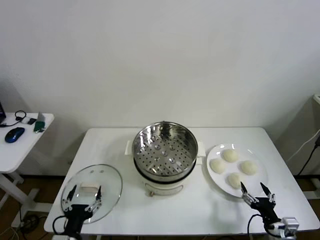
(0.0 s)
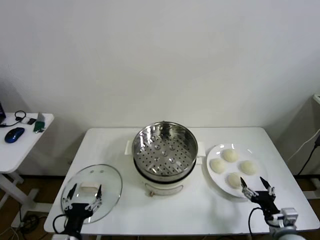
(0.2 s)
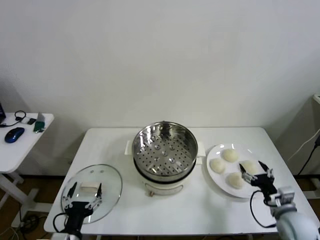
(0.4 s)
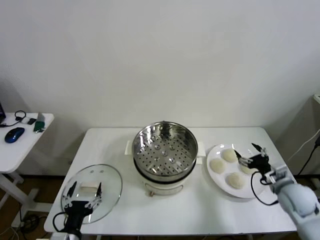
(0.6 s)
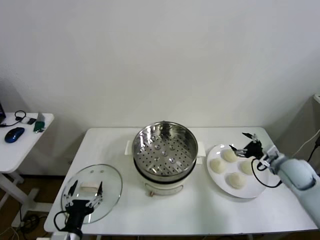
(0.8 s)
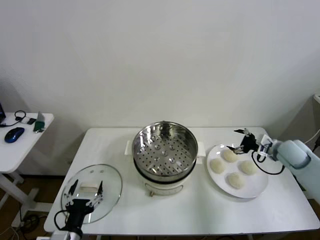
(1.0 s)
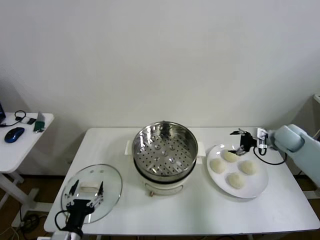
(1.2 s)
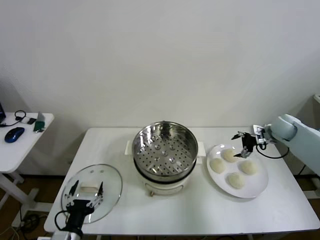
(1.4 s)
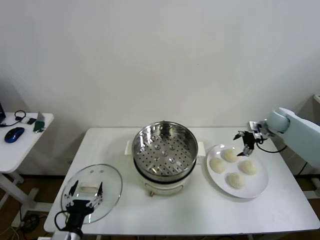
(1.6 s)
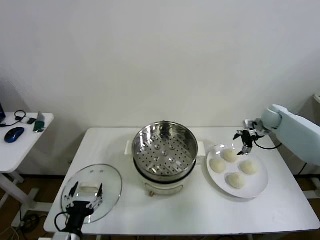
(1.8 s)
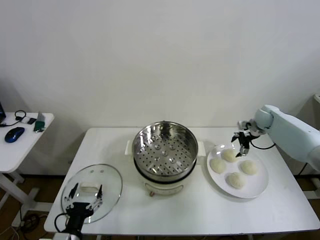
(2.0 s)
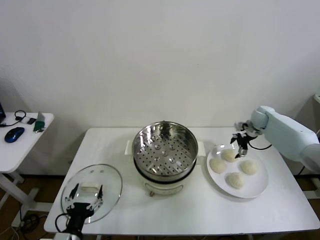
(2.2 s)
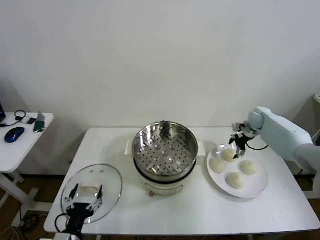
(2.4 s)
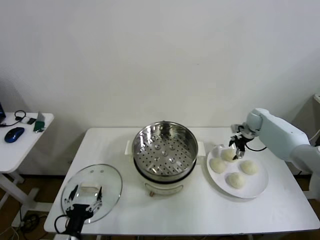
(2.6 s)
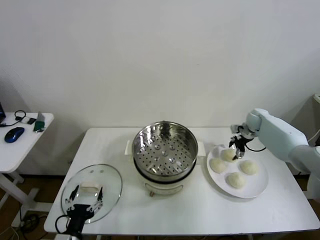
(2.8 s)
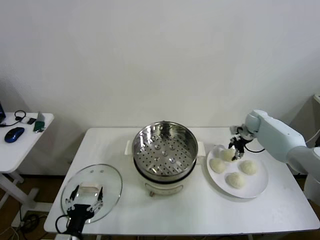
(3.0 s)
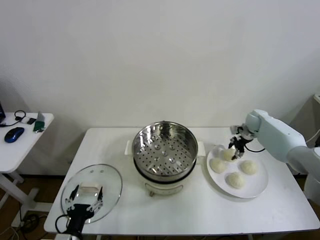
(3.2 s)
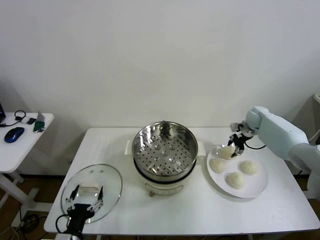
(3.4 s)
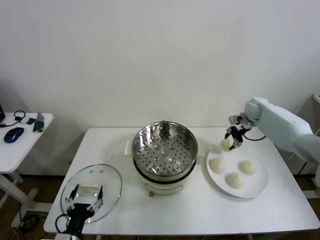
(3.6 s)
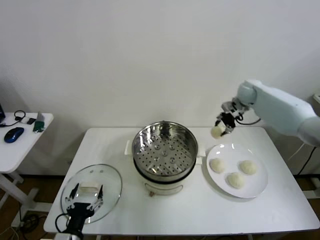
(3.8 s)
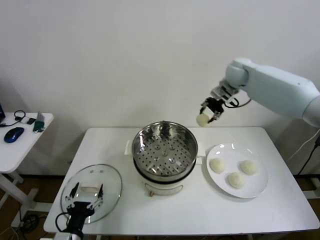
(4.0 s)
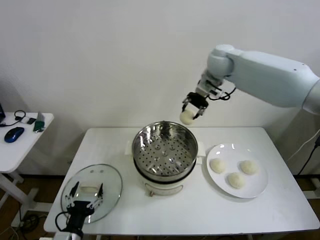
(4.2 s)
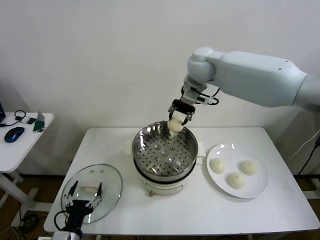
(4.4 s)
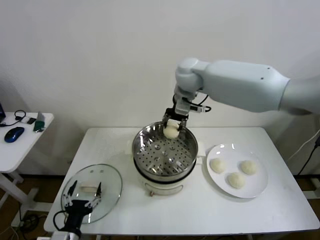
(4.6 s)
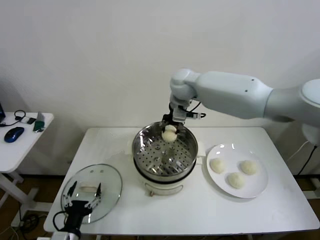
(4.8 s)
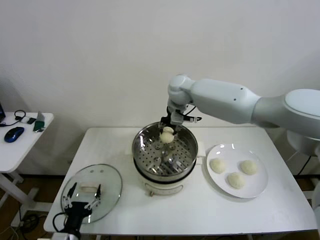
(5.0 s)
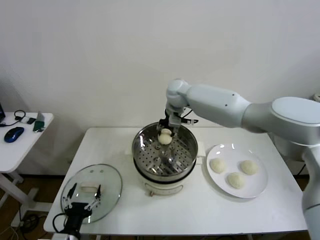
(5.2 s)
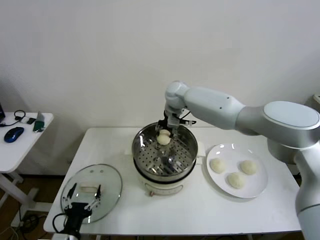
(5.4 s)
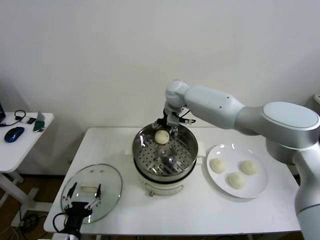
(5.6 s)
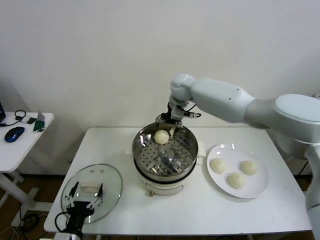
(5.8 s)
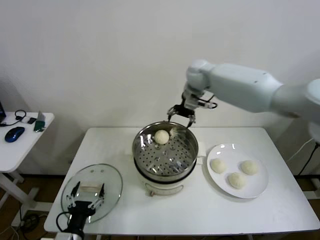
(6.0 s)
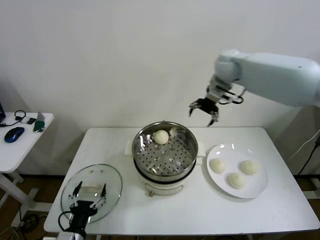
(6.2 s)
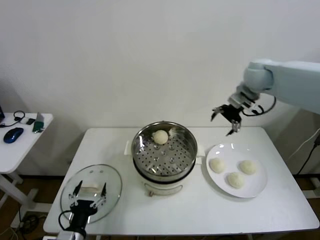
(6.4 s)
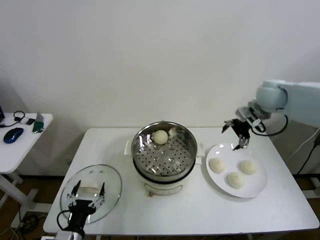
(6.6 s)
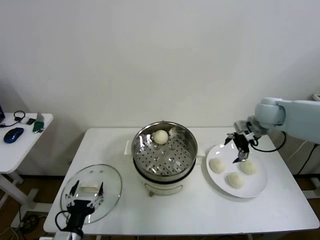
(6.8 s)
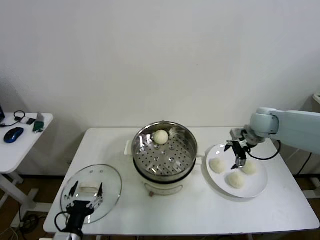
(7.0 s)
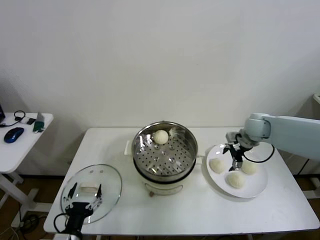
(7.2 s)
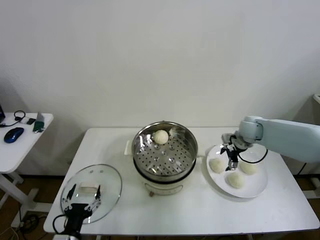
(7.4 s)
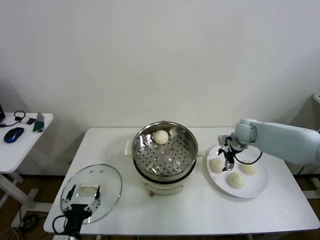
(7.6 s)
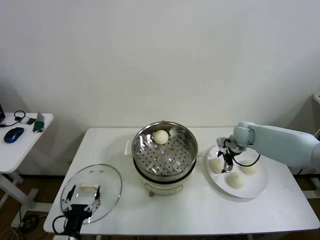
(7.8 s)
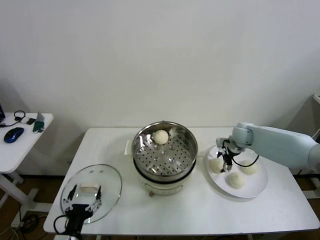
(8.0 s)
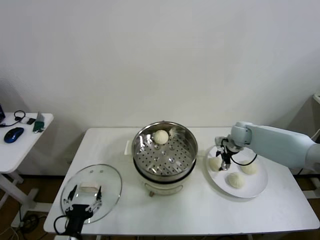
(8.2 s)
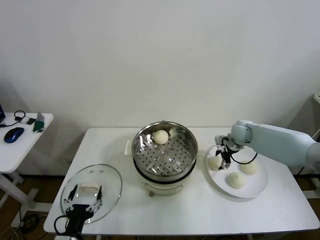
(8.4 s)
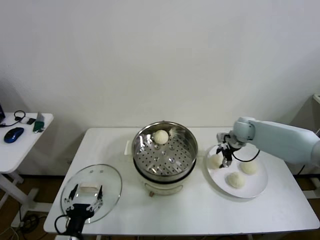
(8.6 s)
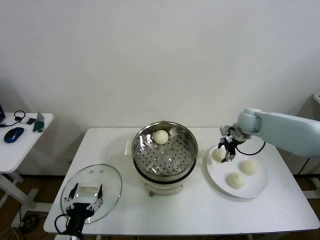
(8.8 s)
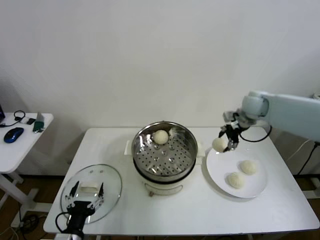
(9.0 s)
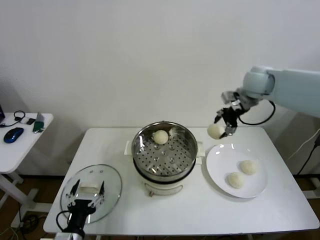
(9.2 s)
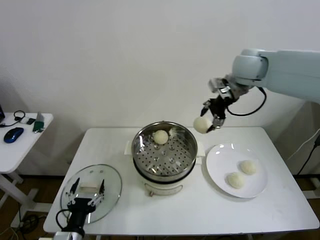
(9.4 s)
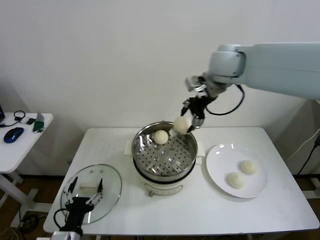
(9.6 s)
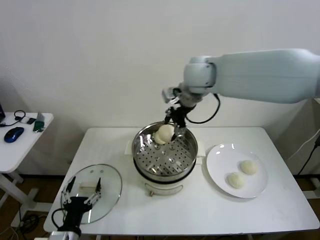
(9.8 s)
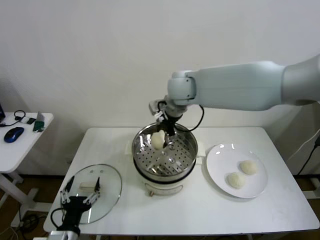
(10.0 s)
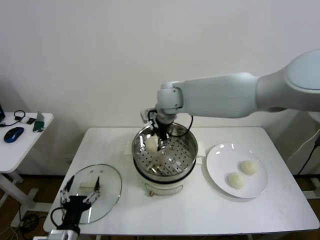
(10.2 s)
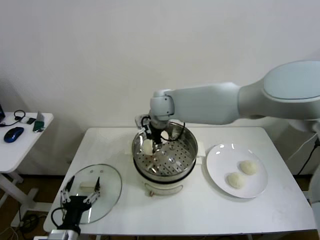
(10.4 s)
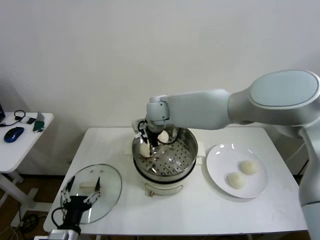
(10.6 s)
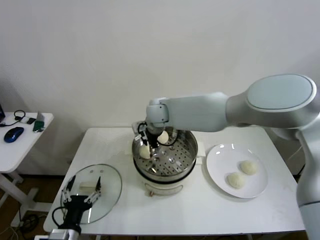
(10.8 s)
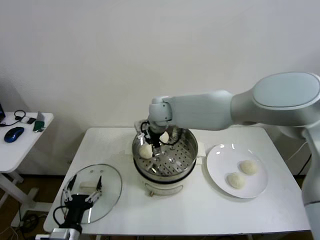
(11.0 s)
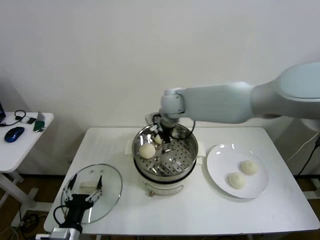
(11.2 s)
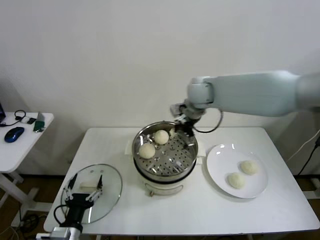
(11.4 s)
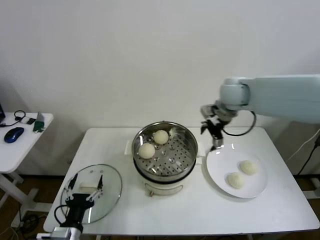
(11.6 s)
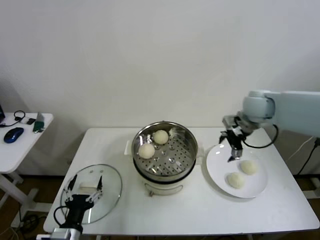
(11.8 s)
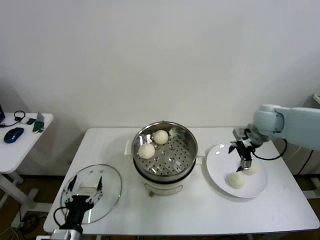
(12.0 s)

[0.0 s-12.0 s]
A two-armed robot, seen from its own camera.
Step, 0.0 to 3.0 s: Grasp the baozi in the plate with right gripper.
Step, 3.2 to 5.4 s: Place the baozi on the steamer with right gripper.
Step, 5.8 to 8.2 s: Grasp the baozi in the plate with right gripper.
Step, 8.4 to 10.8 s: Place the baozi on the steamer with right gripper.
1.6 to 3.0 s: The right gripper is displaced downward by some 5 cm, and closes.
3.0 to 4.4 s: The right gripper goes approximately 40 cm to the left and upward.
4.4 to 6.0 s: The right gripper is displaced to the right by roughly 5 cm, travels downward and back again, approximately 15 cm each way, and opens.
6.0 to 7.6 s: The right gripper shifts approximately 30 cm downward and to the right.
7.6 to 9.0 s: The right gripper travels upward by about 15 cm, and closes.
9.0 to 10.4 s: The right gripper is displaced to the left by approximately 30 cm.
10.4 to 12.0 s: The right gripper moves to the right, about 35 cm, and opens up.

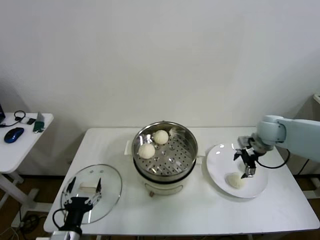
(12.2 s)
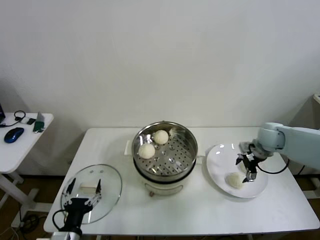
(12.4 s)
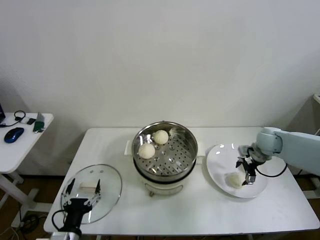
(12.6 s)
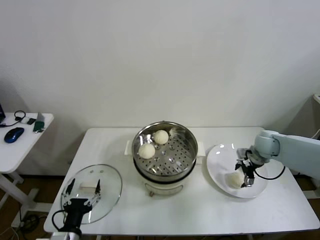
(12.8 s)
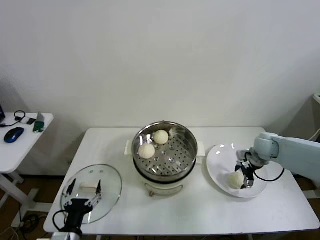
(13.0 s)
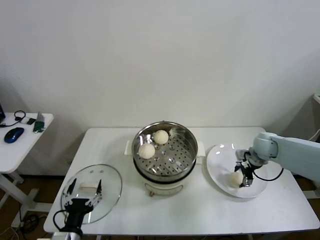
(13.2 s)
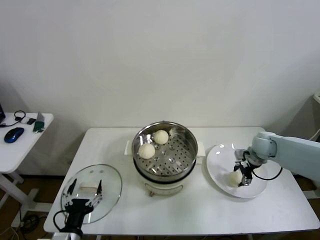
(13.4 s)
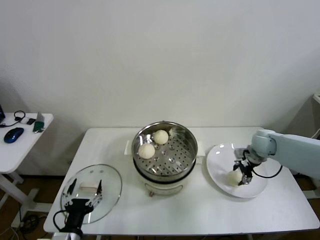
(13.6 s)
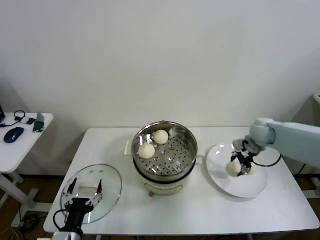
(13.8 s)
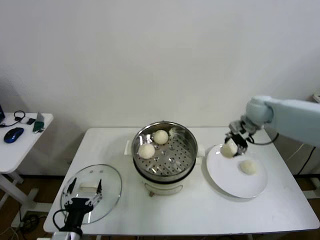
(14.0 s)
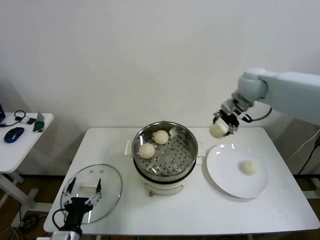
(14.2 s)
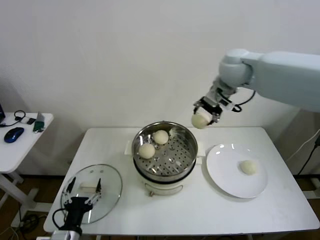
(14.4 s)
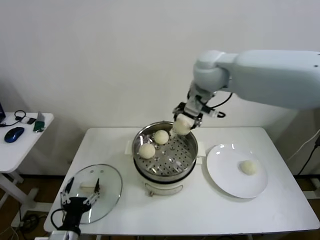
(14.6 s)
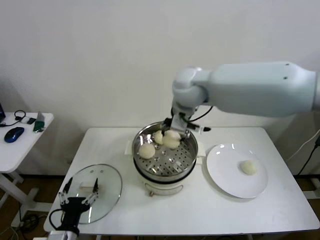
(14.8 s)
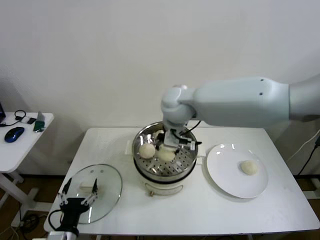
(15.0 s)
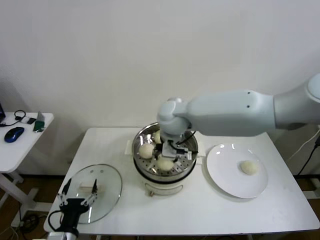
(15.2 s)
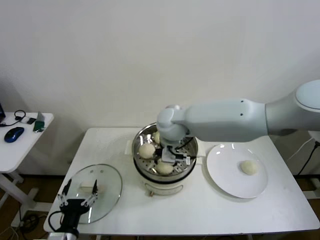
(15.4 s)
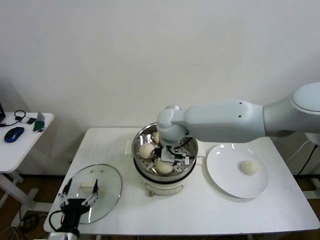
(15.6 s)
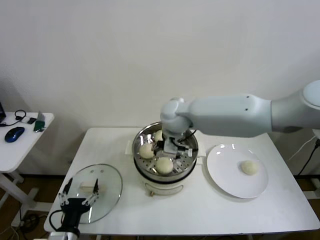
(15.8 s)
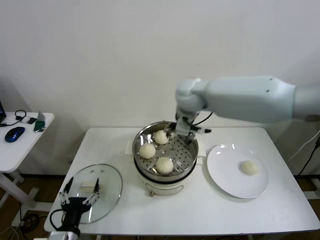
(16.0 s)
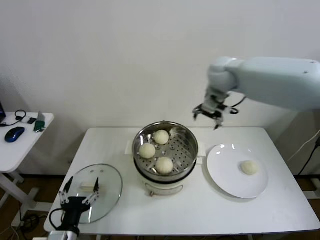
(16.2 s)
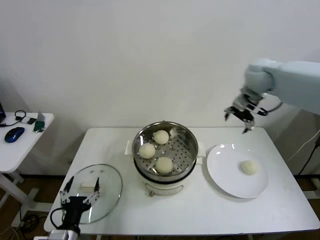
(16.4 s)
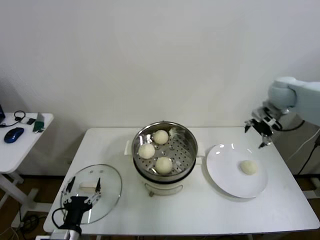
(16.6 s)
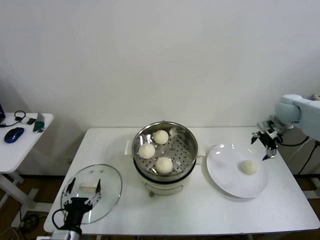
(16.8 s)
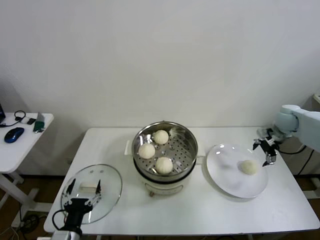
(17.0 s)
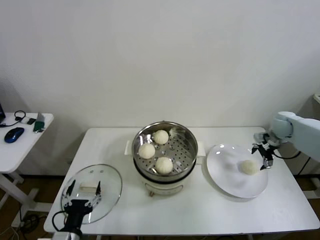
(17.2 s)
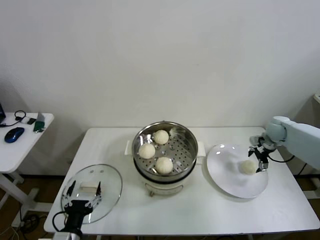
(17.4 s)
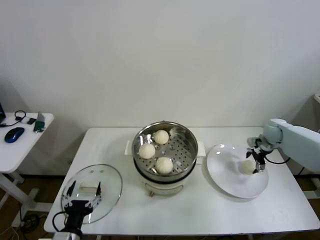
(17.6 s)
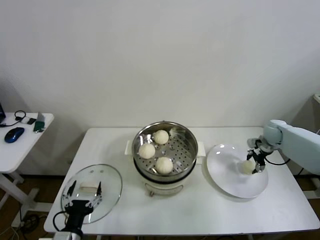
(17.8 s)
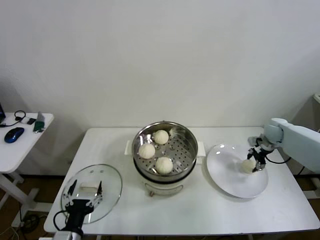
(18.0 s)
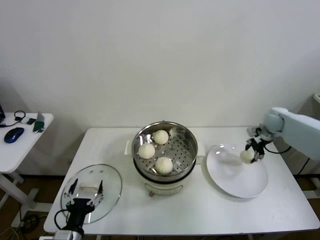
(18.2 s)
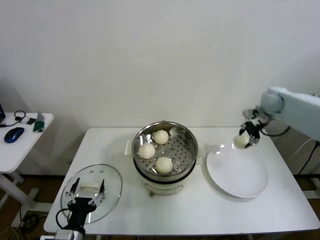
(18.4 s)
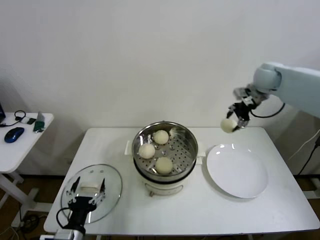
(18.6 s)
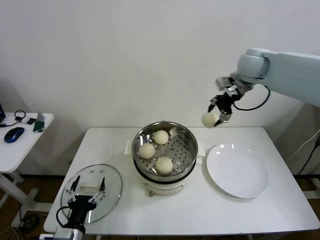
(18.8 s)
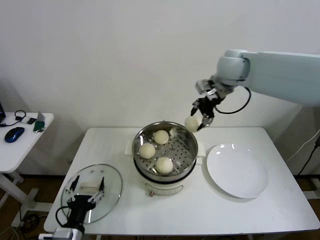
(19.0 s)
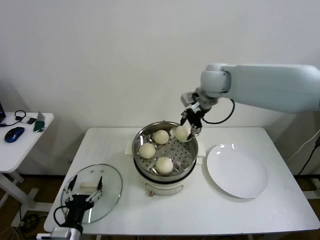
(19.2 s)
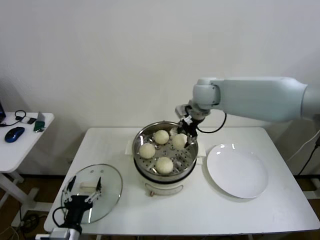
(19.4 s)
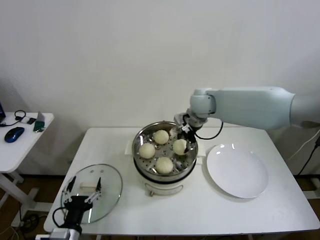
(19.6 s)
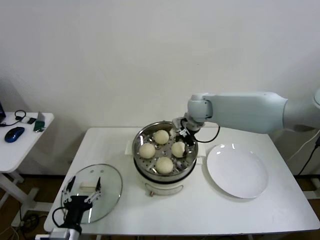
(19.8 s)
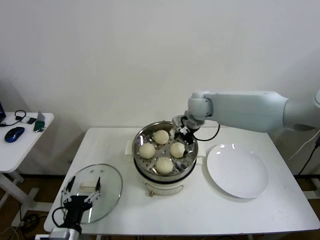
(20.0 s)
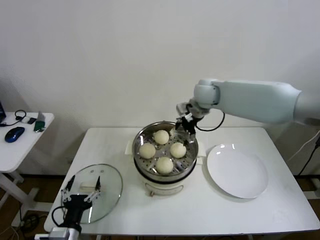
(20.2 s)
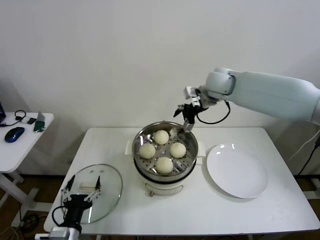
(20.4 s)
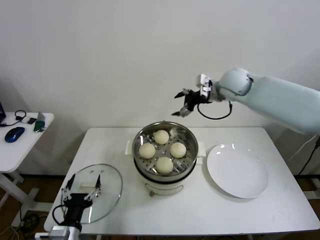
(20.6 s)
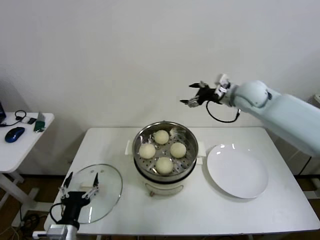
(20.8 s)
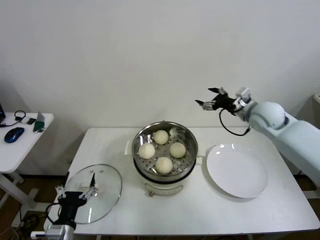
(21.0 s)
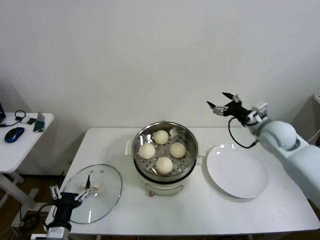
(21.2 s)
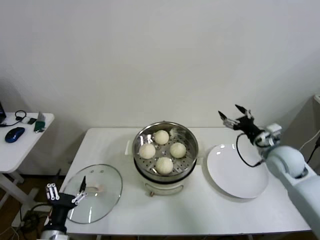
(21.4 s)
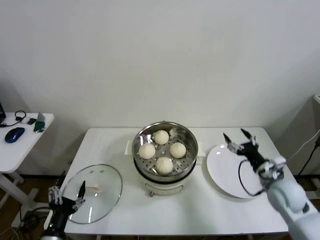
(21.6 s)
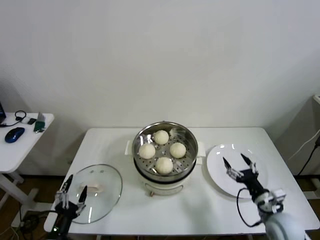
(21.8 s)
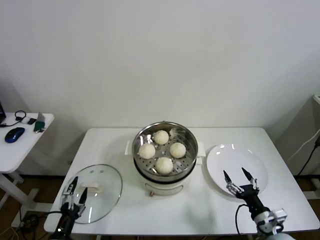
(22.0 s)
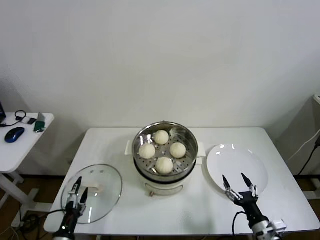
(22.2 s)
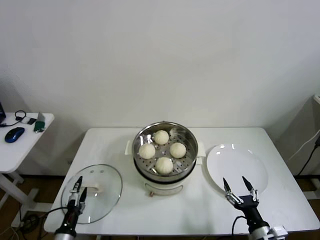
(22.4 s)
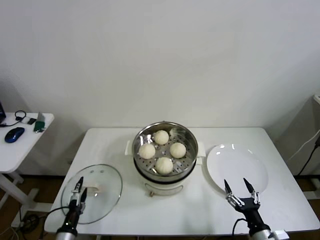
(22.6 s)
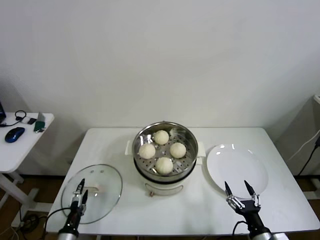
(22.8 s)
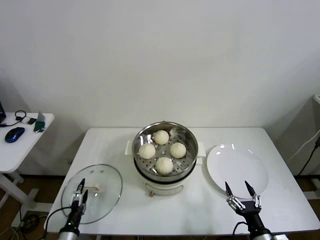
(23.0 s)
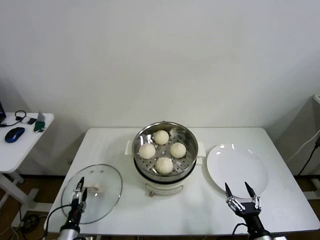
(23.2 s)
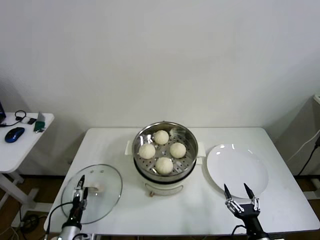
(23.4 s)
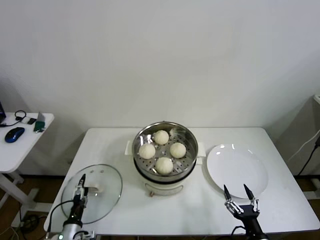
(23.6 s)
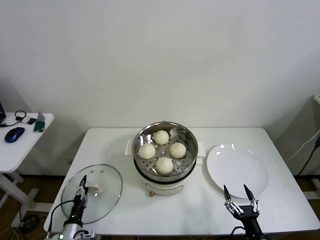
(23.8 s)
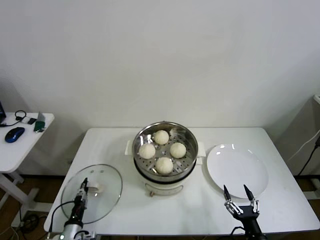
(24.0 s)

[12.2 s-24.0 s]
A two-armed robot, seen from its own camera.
Step, 13.4 to 15.6 s: Place the baozi on the steamer with right gripper.
Step, 15.8 to 17.8 s: Grasp the baozi in the plate with right gripper.
Step, 18.0 to 19.8 s: Place the baozi on the steamer with right gripper.
12.2 to 13.6 s: The right gripper travels downward by some 5 cm, and closes.
13.6 to 15.2 s: The right gripper heads to the left and upward, covering roughly 40 cm.
15.2 to 16.6 s: The right gripper shifts approximately 35 cm to the right, and opens its fingers.
16.6 to 18.2 s: The right gripper goes roughly 10 cm downward, and closes its fingers.
18.2 to 19.6 s: The right gripper shifts about 30 cm to the left.
19.6 to 21.0 s: The right gripper is displaced to the right by some 20 cm, and opens.
21.0 to 22.6 s: The right gripper goes approximately 40 cm backward and downward. Meanwhile the left gripper heads downward, covering some 10 cm.
22.6 to 24.0 s: The left gripper goes about 5 cm downward, and closes up.
